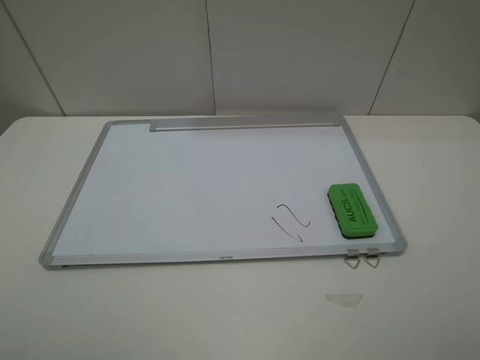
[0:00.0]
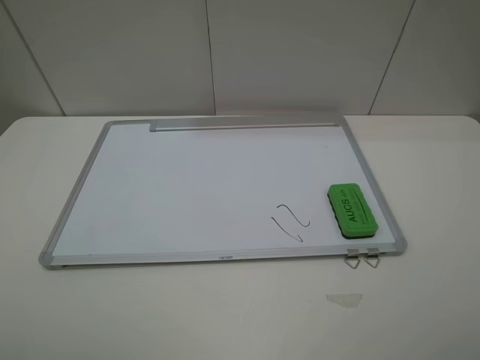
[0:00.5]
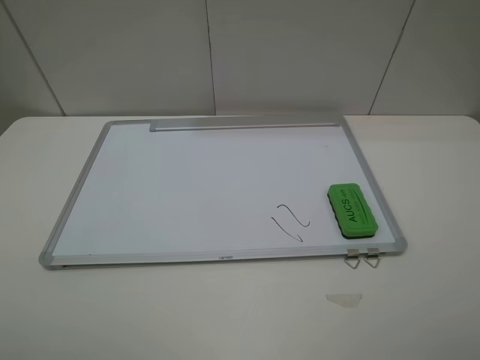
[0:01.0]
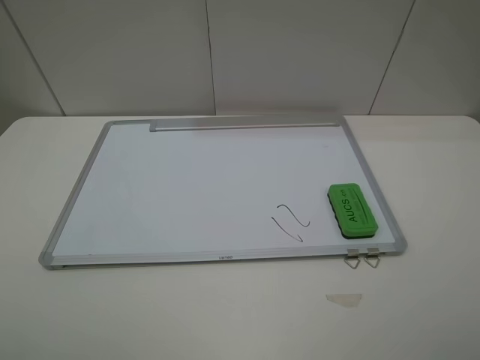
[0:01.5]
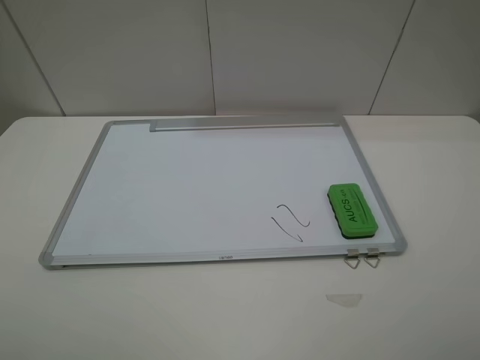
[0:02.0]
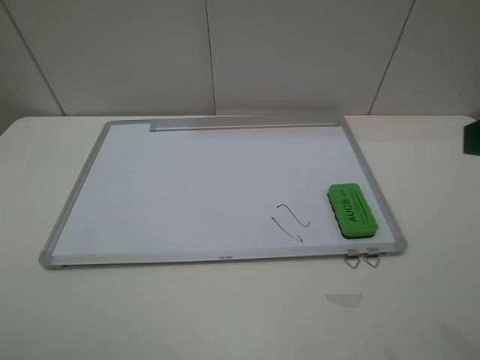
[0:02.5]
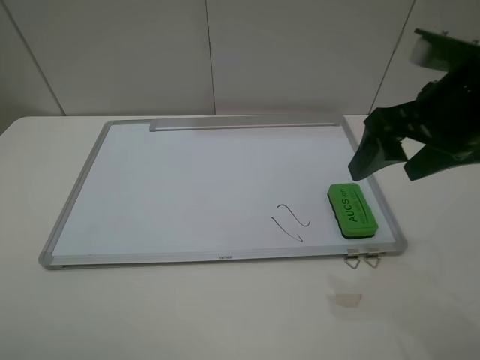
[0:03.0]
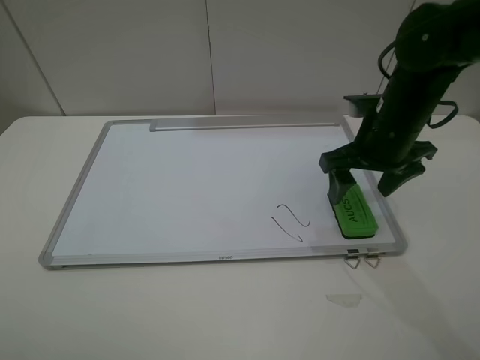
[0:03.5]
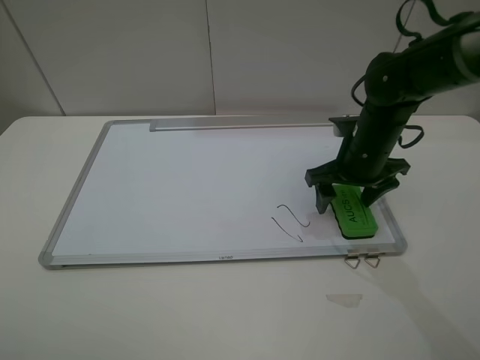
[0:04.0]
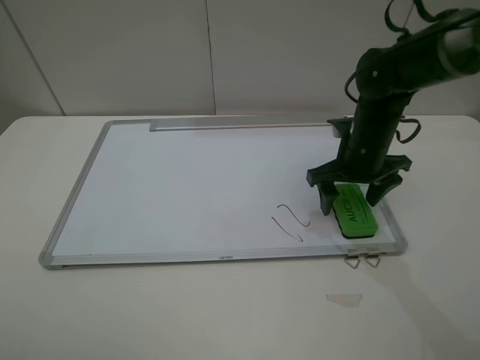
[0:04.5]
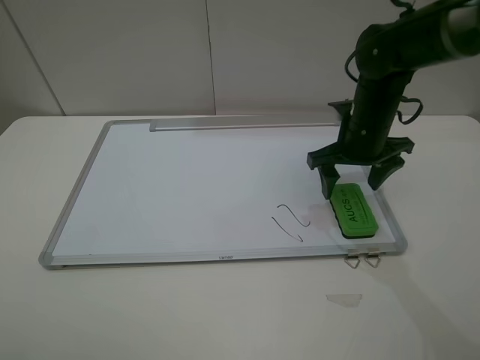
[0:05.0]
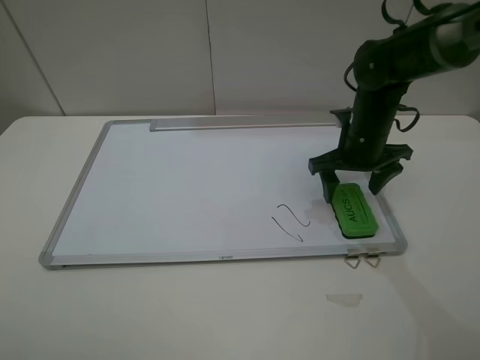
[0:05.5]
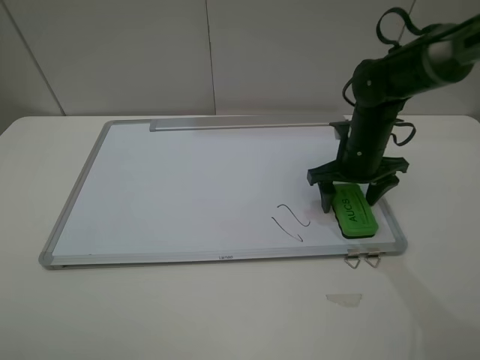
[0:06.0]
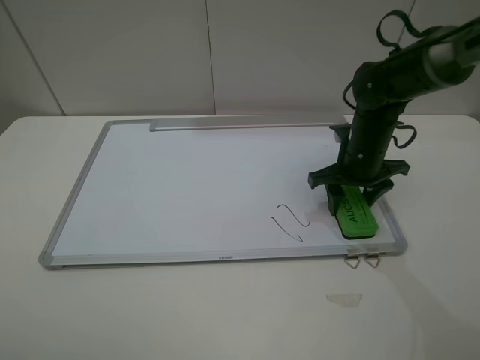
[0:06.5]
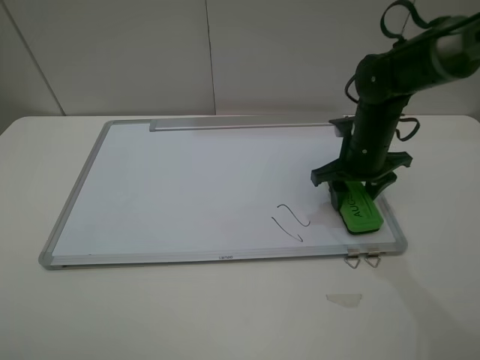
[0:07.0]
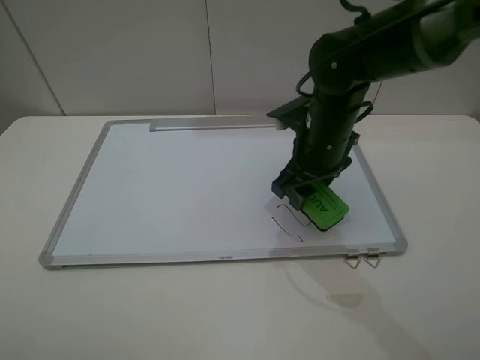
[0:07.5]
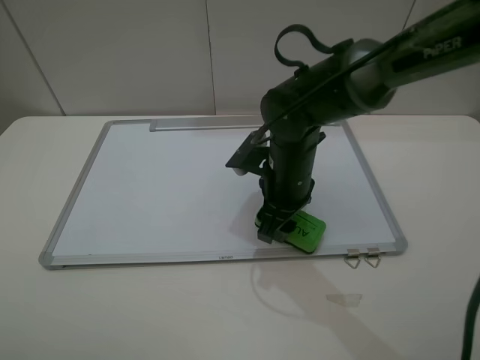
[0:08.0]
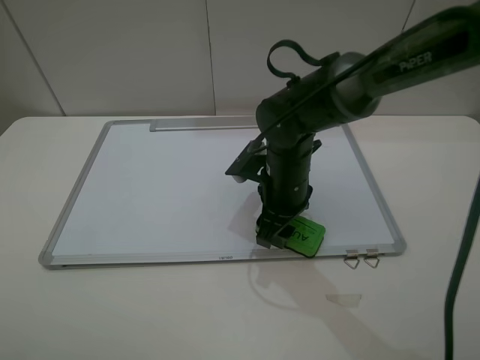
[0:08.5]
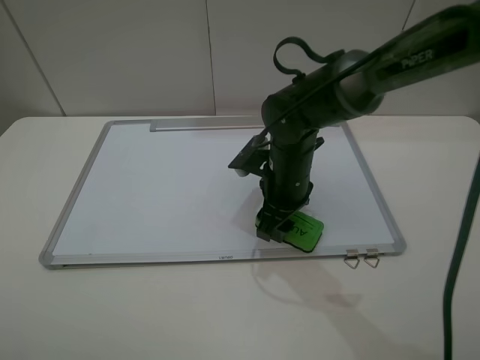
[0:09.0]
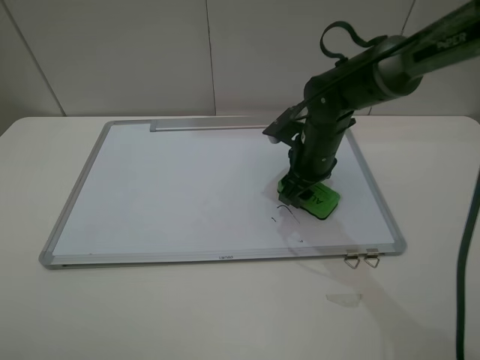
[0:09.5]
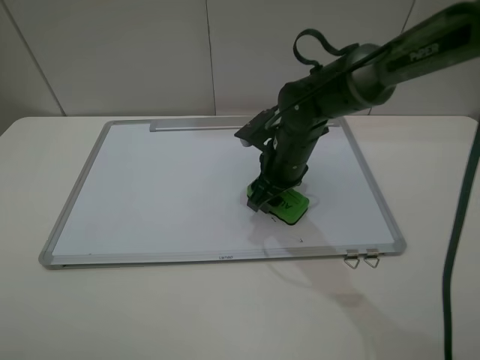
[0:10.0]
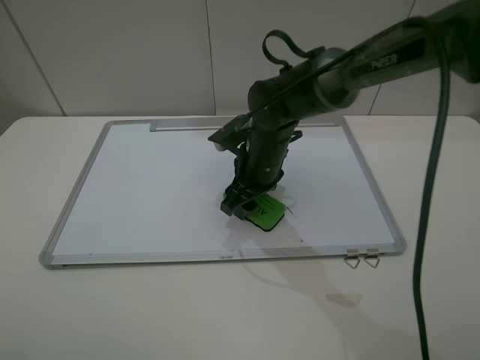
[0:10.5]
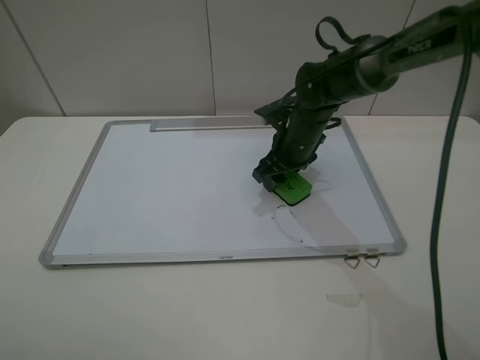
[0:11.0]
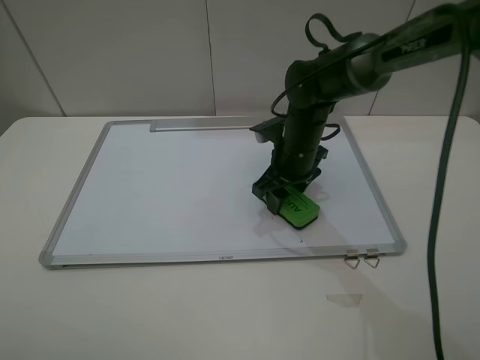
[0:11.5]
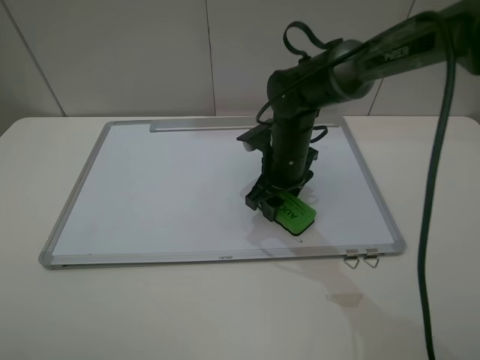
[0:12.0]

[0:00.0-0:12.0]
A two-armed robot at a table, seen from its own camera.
Step, 0:00.0 to 0:06.5: Grasp the eraser with the right gripper.
0:02.0 to 0:04.0: The right gripper travels forward and downward by some 40 cm.
0:04.0 to 0:06.0: The grippers stay close to where they were, moving slightly.
0:06.0 to 0:08.0: The right gripper moves to the left and backward, some 15 cm, and closes its fingers.
0:10.0 to 0:12.0: The grippers stay close to where they were, moving slightly.

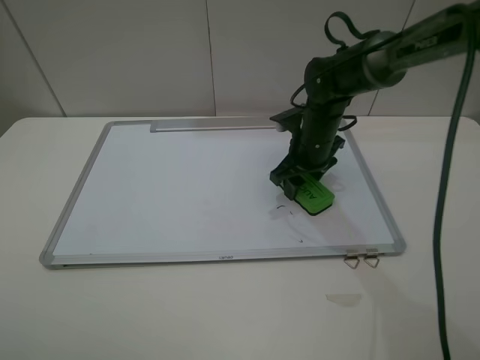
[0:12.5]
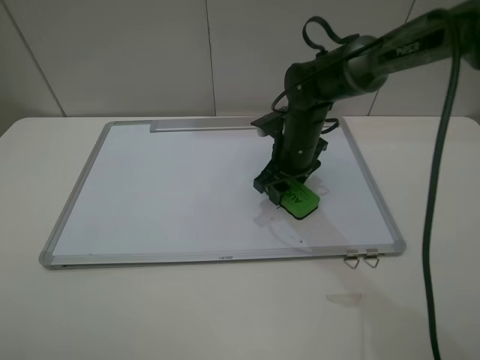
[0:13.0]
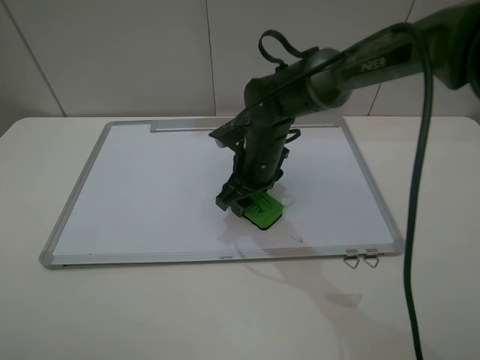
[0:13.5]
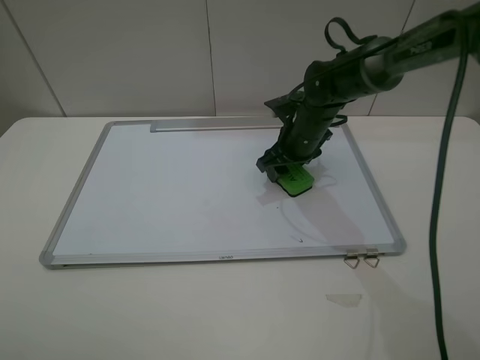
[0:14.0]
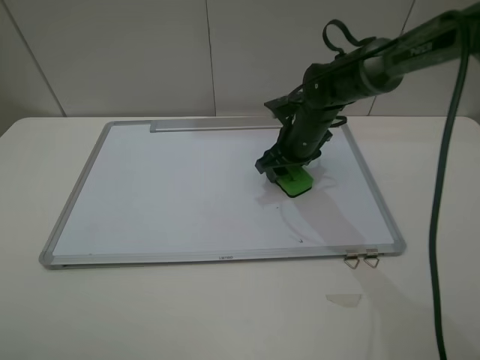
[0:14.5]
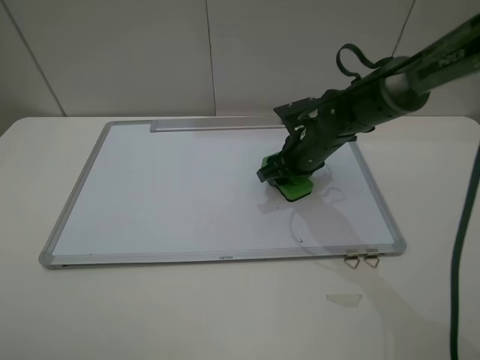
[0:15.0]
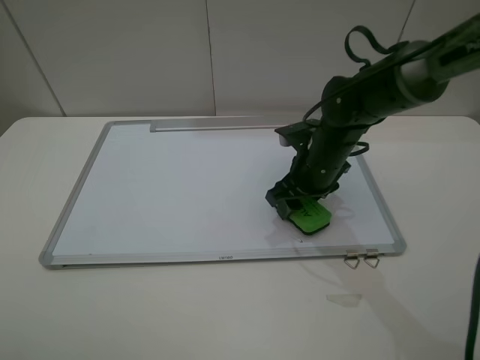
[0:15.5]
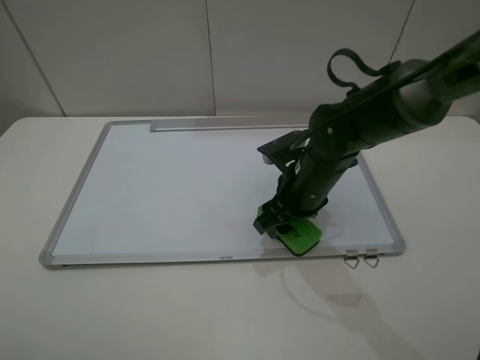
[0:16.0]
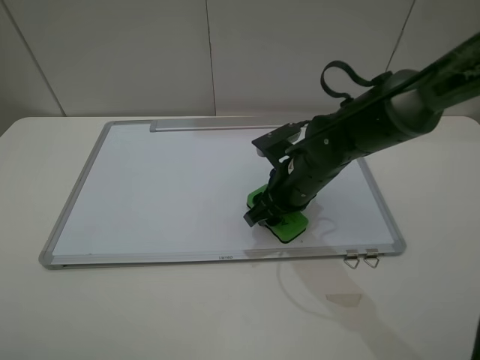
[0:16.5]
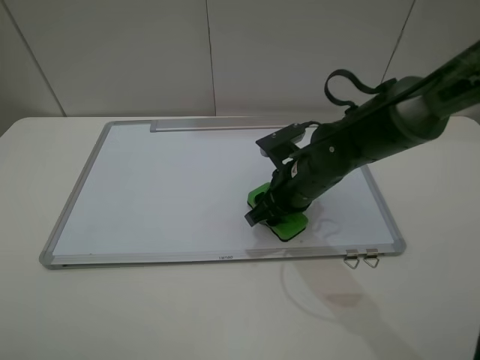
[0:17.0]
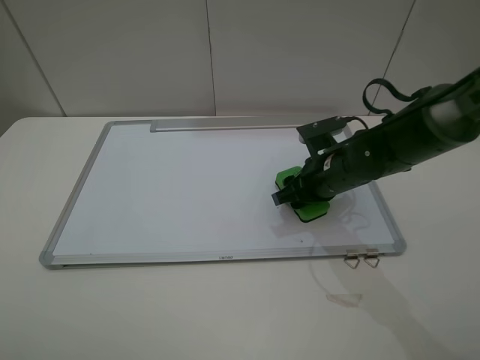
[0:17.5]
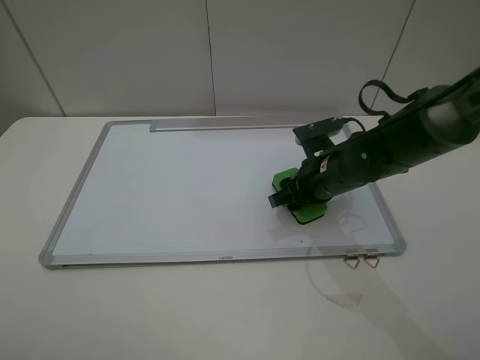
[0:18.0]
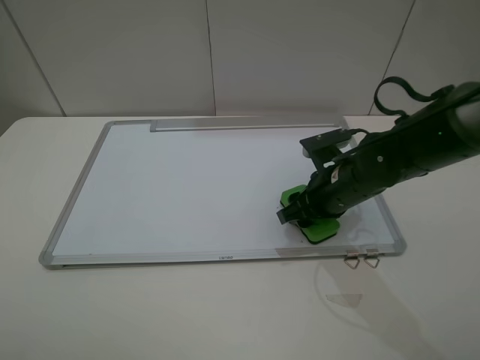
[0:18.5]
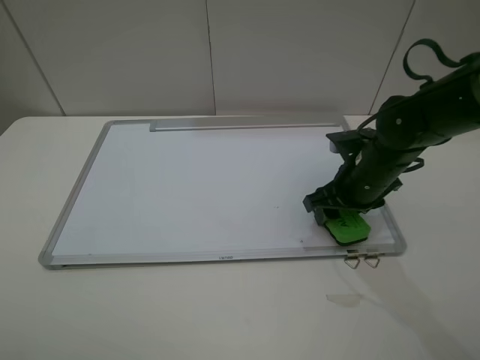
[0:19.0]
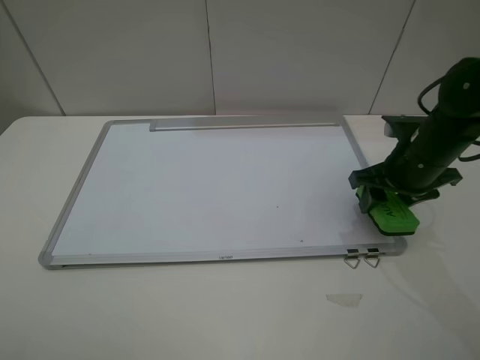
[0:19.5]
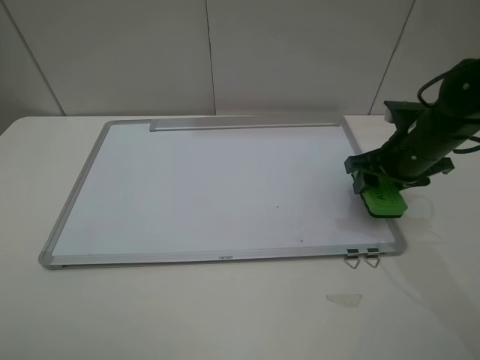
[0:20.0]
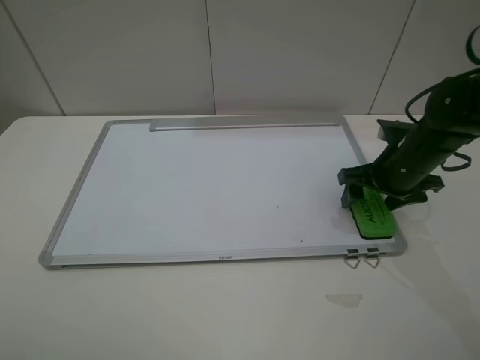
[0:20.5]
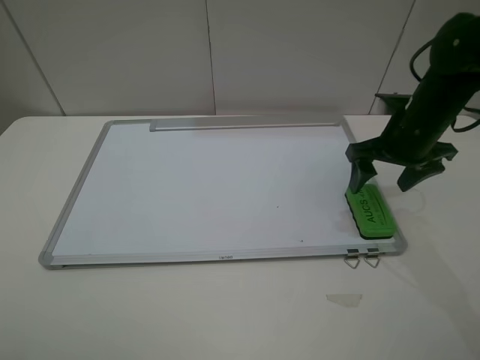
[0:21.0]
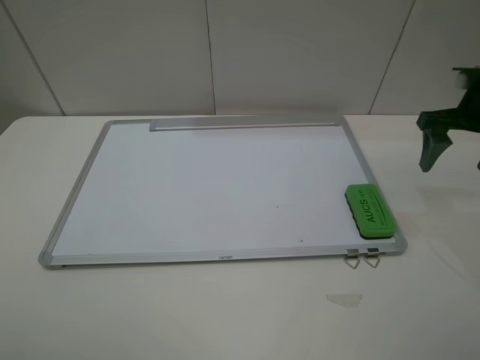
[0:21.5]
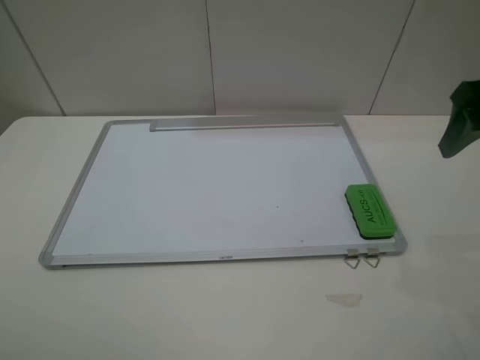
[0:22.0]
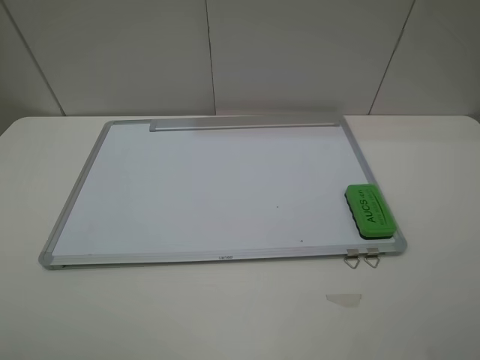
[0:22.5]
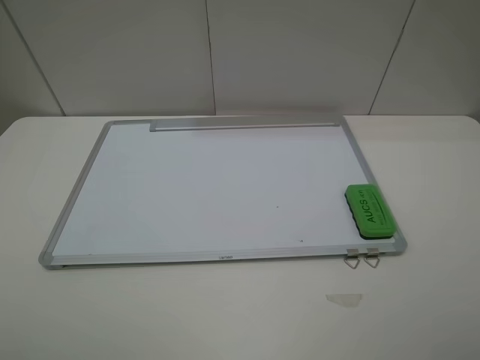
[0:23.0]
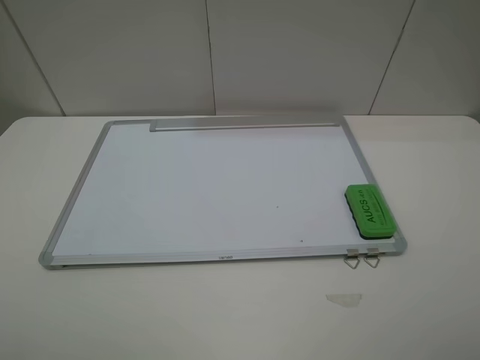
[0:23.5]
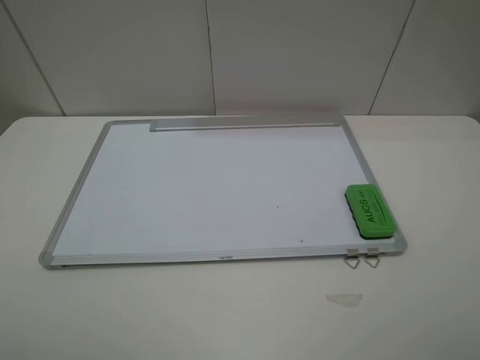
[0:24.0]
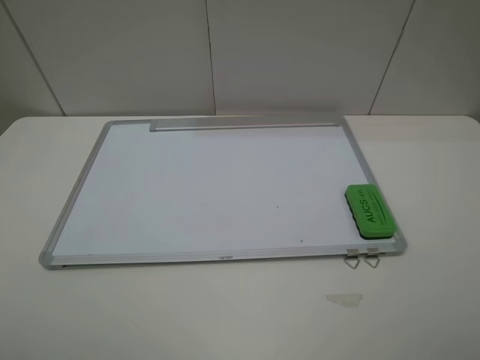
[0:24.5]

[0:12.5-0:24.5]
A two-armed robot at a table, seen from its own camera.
Step, 0:12.5 to 0:18.5: Grasp the eraser and wipe the blackboard with the right gripper.
Step, 0:19.0 to 0:20.5: Place the eraser with the right gripper.
0:12.5 to 0:14.5: The right gripper reaches approximately 10 cm to the left, then returns.
0:14.5 to 0:16.5: The right gripper moves backward, roughly 10 cm.
0:16.5 to 0:18.5: The right gripper heads to the right, covering roughly 5 cm.
0:18.5 to 0:20.5: The right gripper goes about 10 cm to the right, and opens.
0:20.5 to 0:22.5: The right gripper travels backward and upward by roughly 30 cm.
